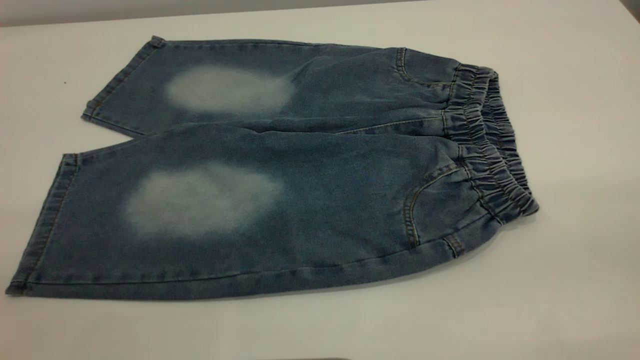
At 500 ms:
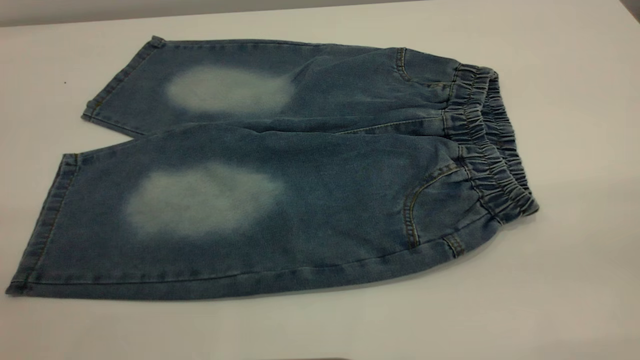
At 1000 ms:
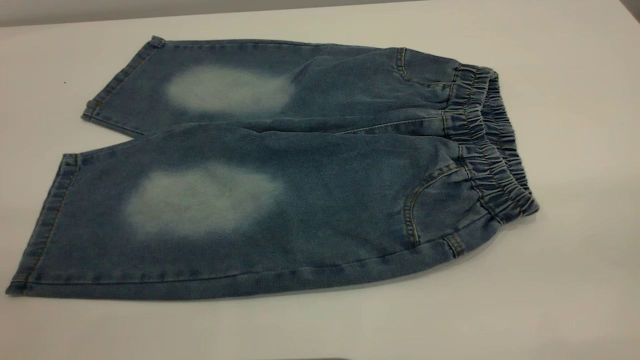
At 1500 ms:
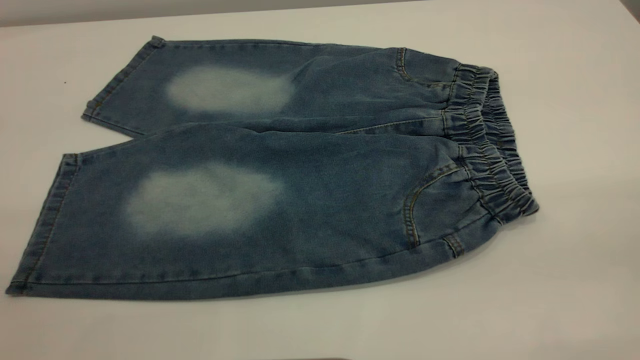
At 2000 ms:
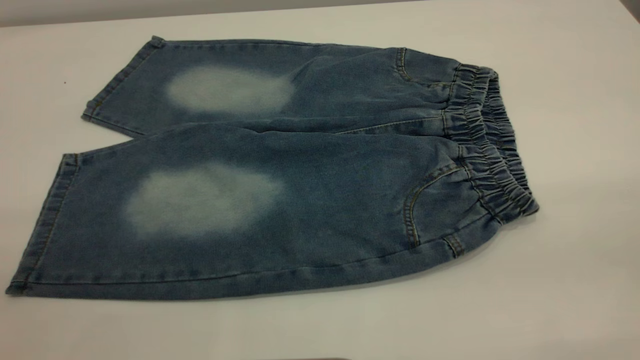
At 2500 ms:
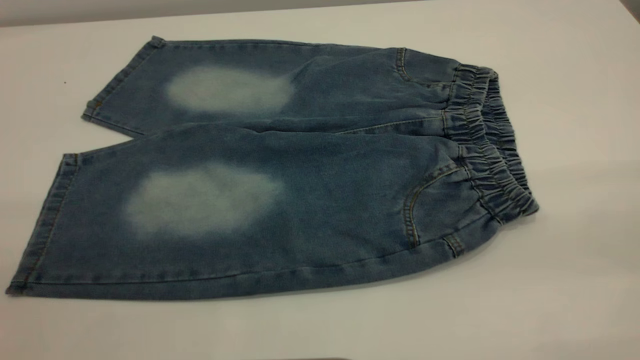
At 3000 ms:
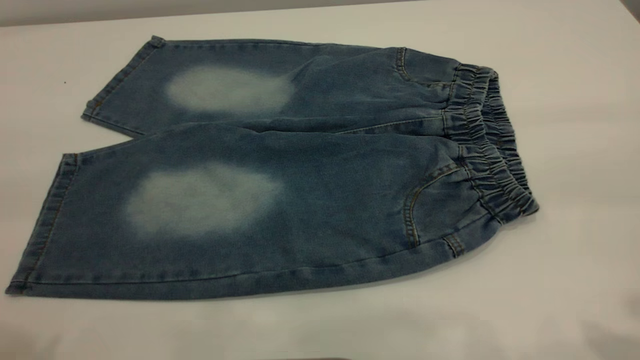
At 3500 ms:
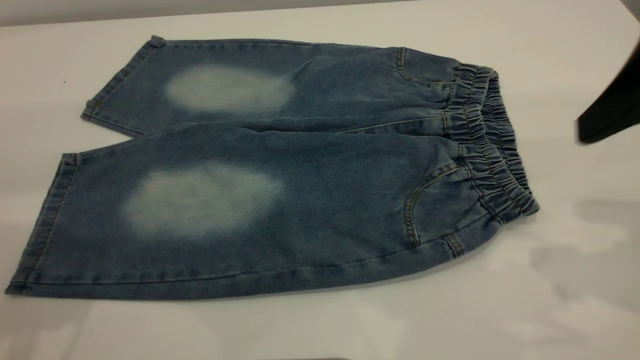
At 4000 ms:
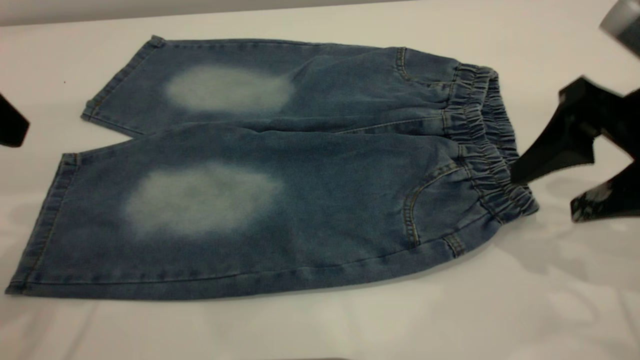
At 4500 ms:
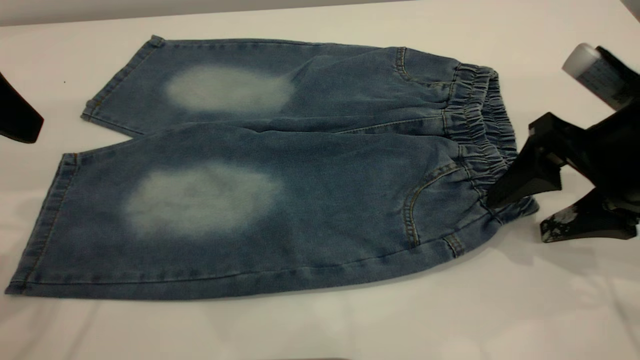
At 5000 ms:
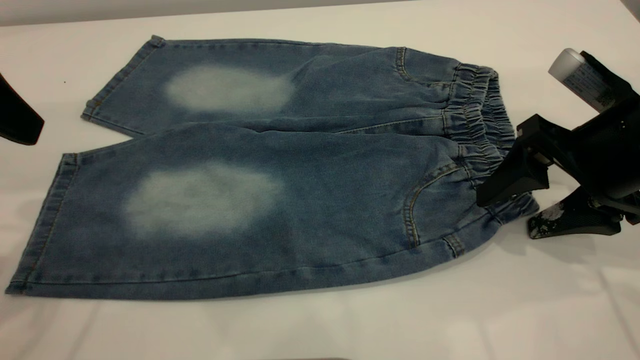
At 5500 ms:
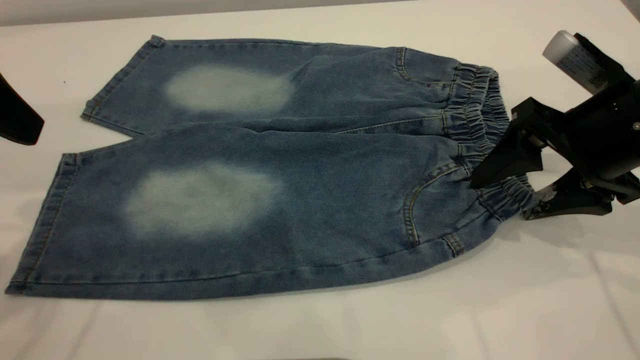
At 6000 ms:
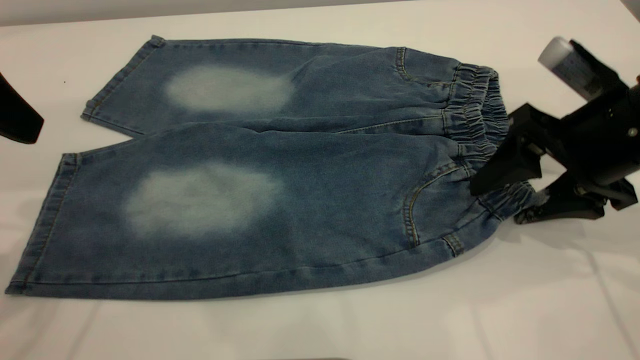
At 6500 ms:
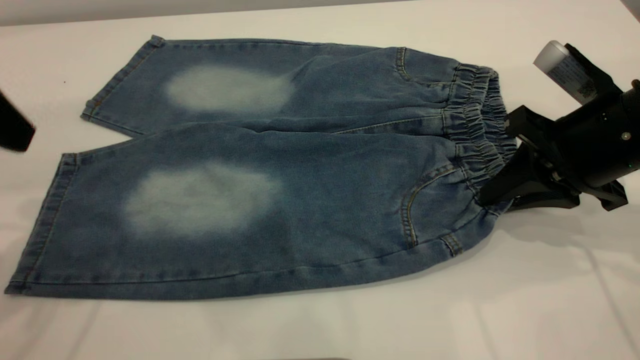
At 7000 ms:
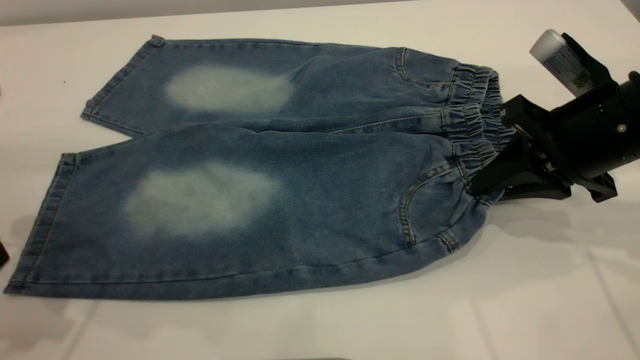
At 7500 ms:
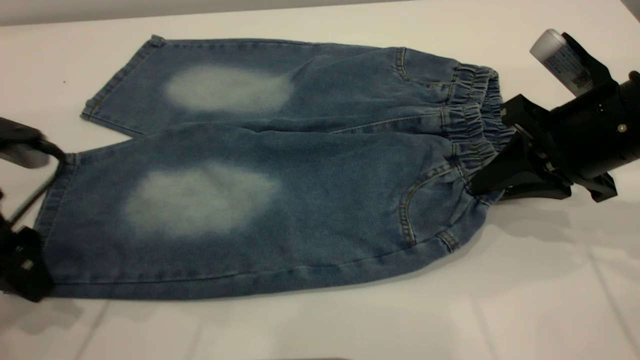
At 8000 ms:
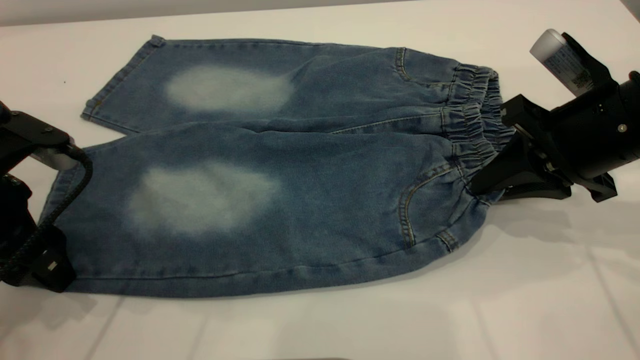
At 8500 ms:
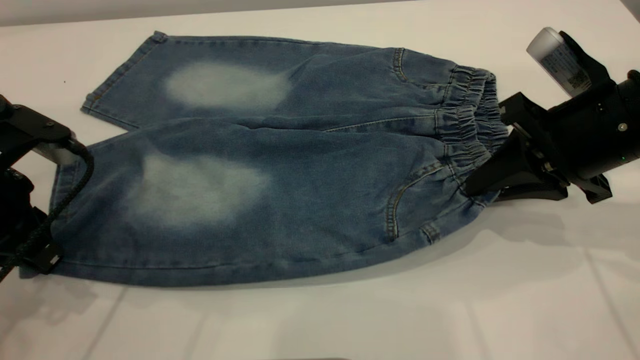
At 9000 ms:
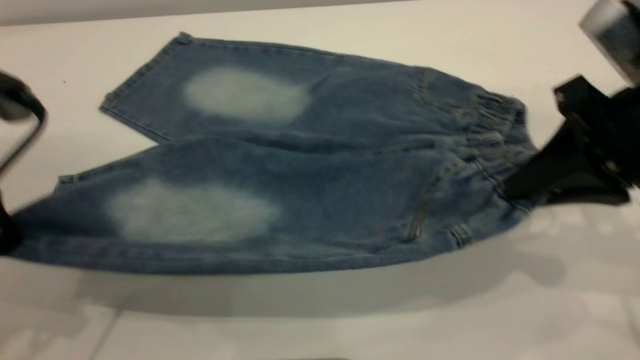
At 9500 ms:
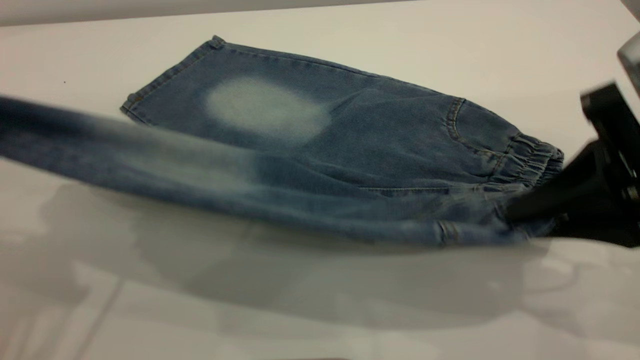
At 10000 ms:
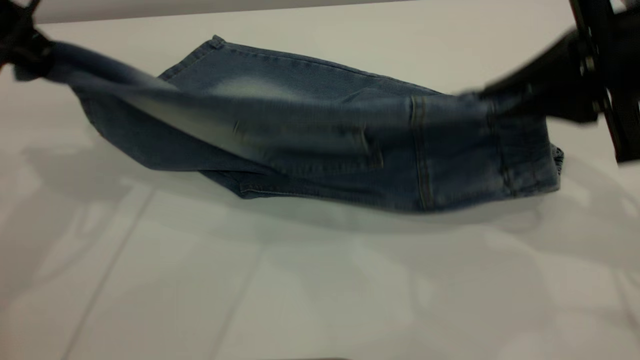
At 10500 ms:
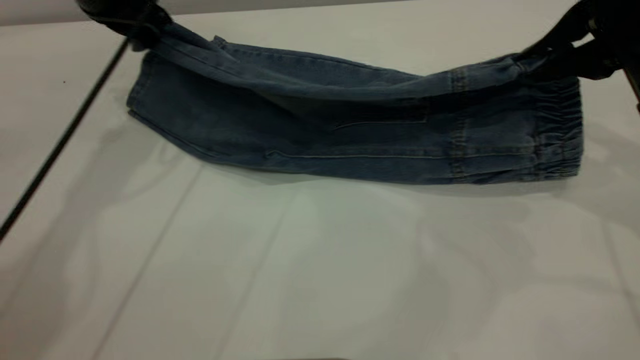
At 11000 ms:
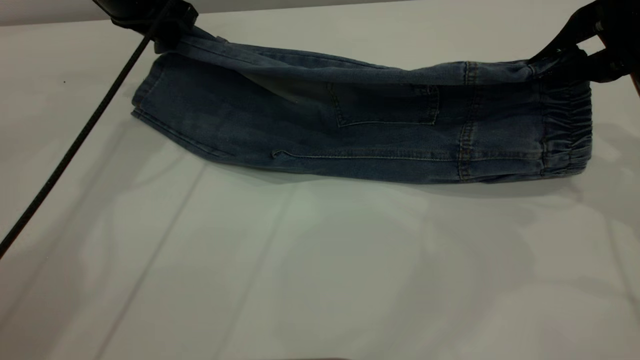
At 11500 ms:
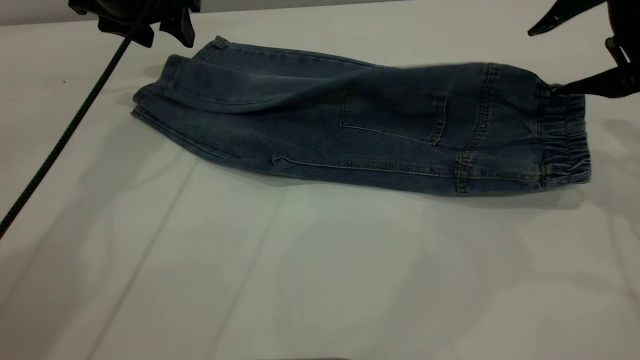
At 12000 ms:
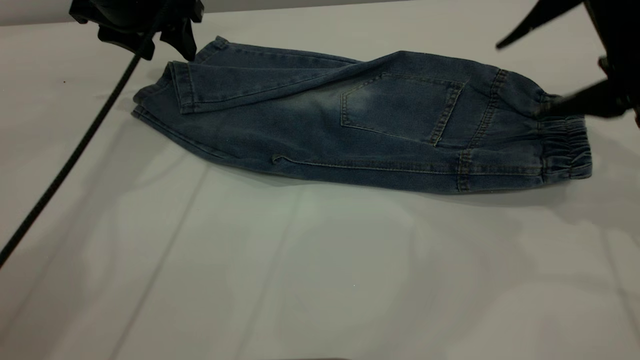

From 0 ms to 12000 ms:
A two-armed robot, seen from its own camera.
Step, from 0 ms to 11500 ms: Fold the bottom of the pants upward.
From 0 ms to 2000 ms: The two grippers keep their place.
From 2000 ms to 4000 ms: The right gripper moves forward and downward, roughly 30 cm.
From 4000 ms to 6000 ms: The right gripper changes place by some 5 cm.
From 6000 ms to 8000 ms: The right gripper closes up, while the left gripper travels downward by roughly 15 cm.
From 8000 ms to 10000 ms: The left gripper travels upward and forward by about 15 cm, and closes its fingers; the right gripper moves upward, some 10 cm, and reaches about 10 cm backward, then returns.
From 10000 ms to 12000 ms: The right gripper opens; the left gripper heads forward, to the right and downward, covering approximately 15 cm, and opens.

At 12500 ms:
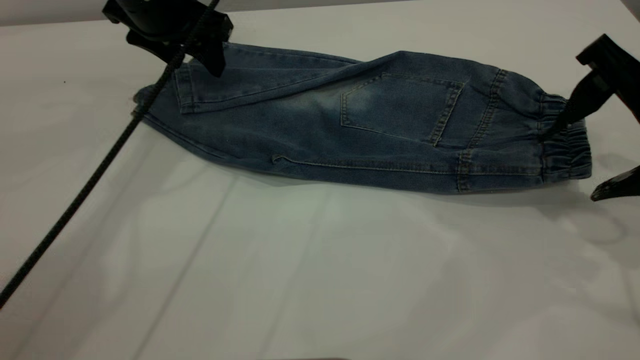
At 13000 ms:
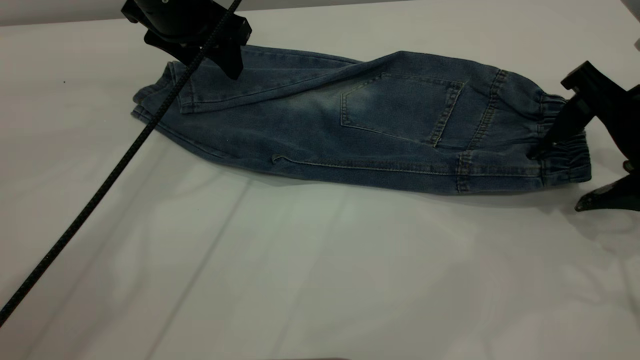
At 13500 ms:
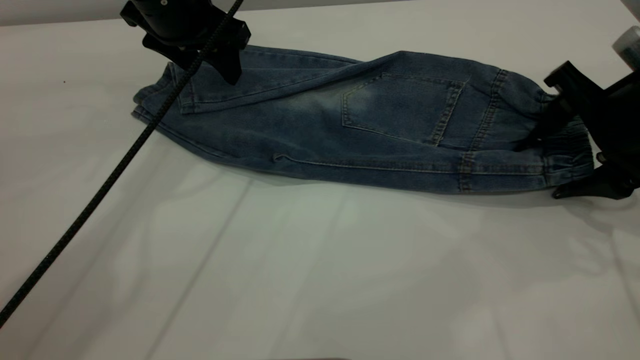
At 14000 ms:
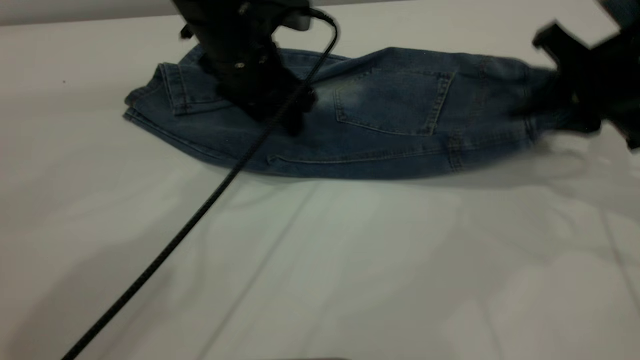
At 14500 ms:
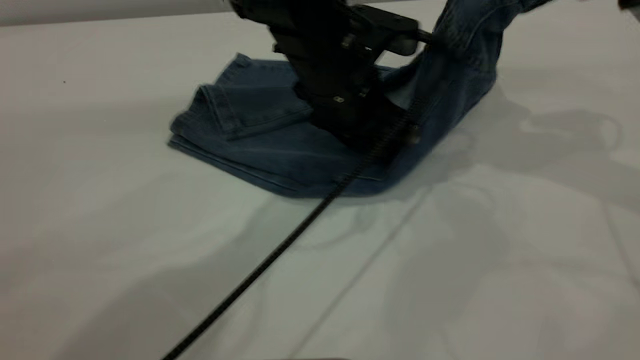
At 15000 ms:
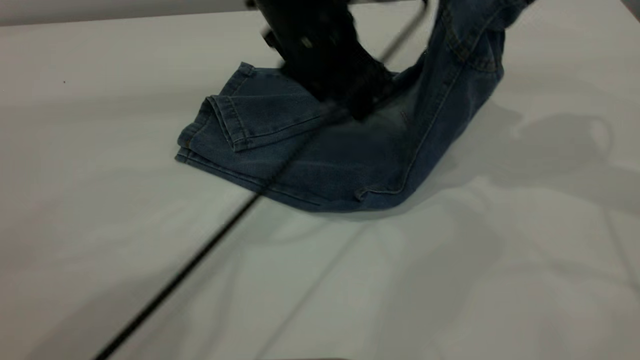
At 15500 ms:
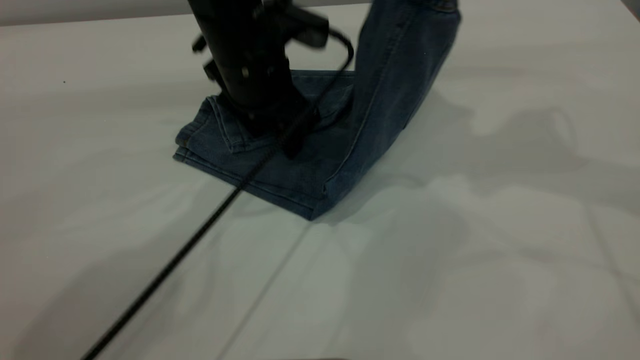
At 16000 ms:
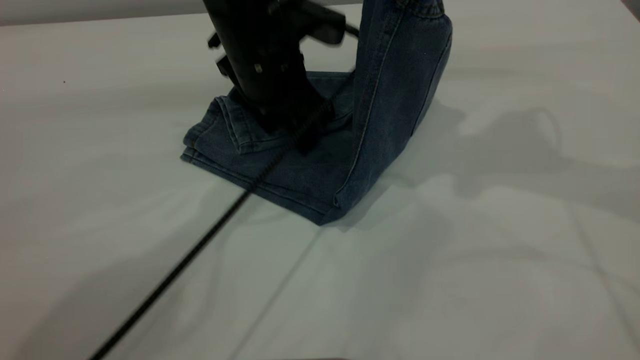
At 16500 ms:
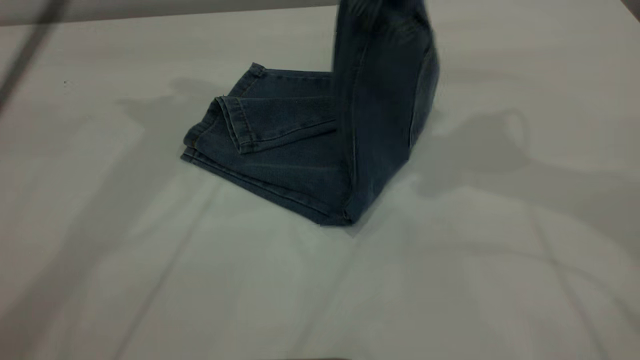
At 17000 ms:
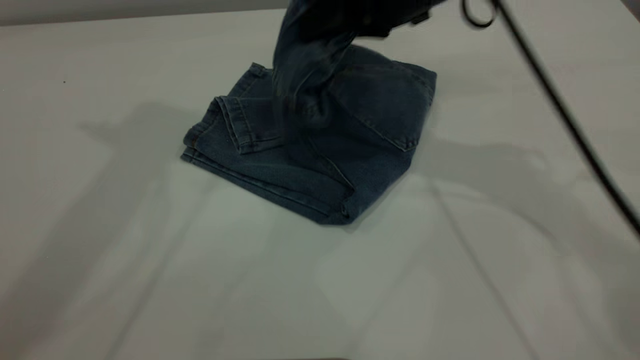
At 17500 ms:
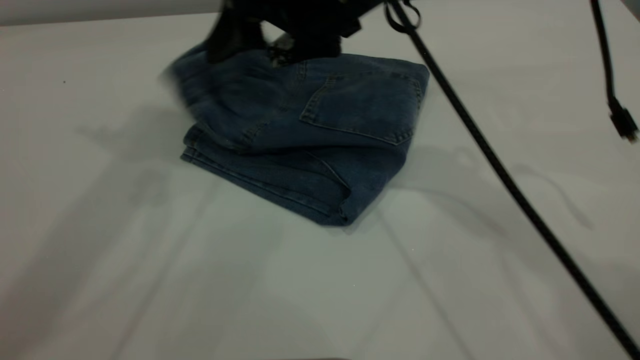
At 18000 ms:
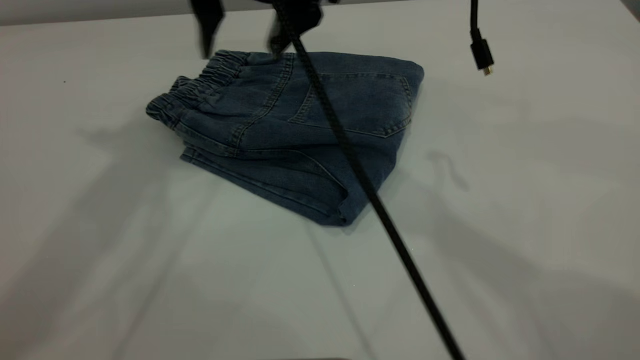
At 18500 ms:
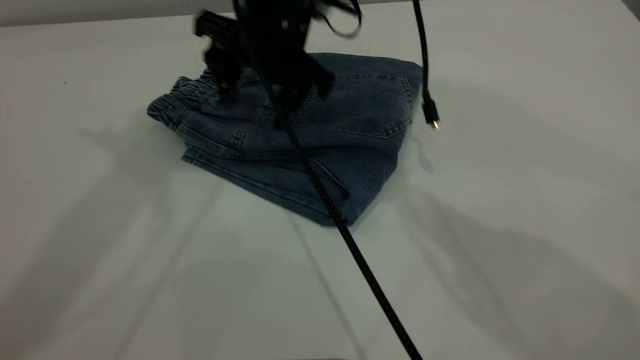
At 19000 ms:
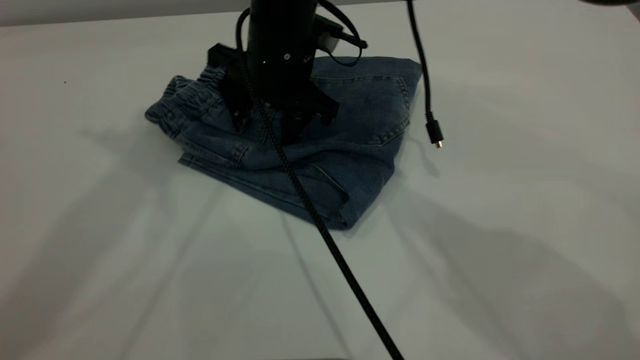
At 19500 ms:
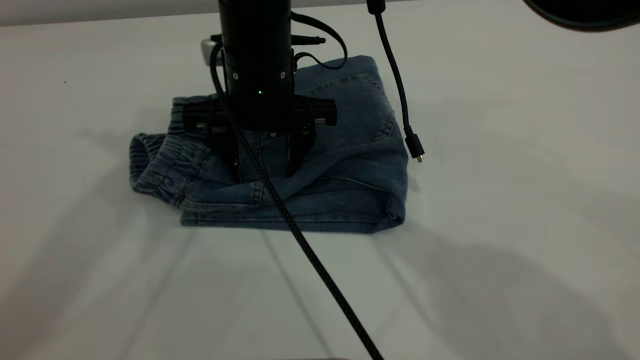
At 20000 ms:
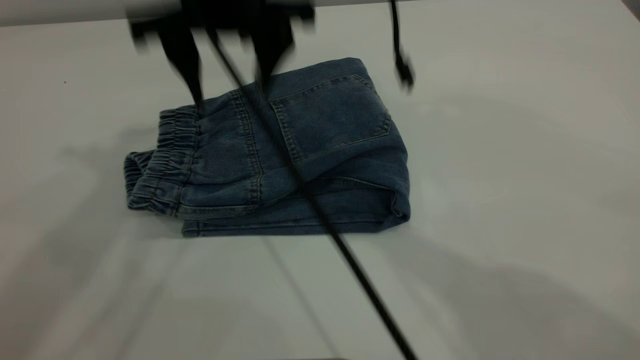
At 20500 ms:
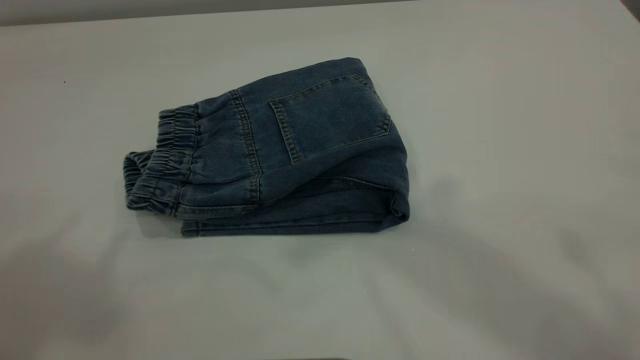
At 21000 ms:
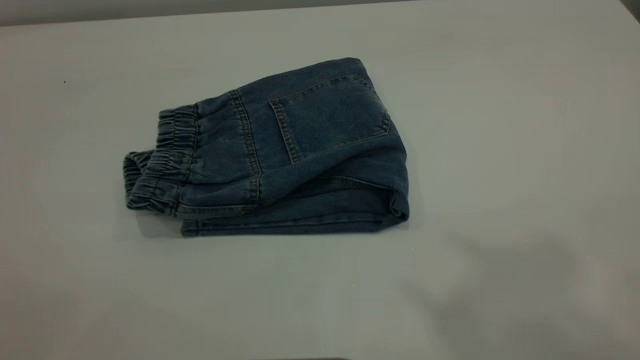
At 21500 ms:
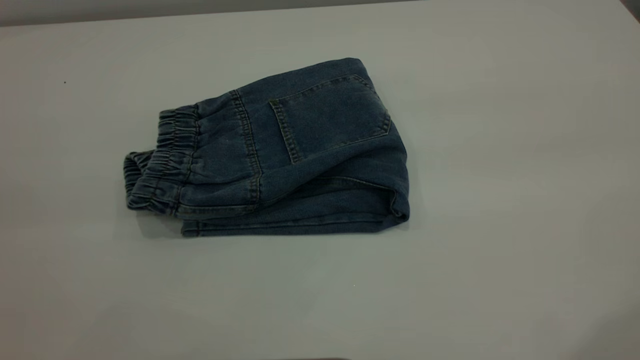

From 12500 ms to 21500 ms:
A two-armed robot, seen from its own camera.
Step, from 12500 ms to 17500 ms: Fold your pants from right to left.
From 12500 ms to 14500 ms: The right gripper moves upward and forward, roughly 10 cm, and closes its fingers. The left gripper is displaced to the right and backward by about 20 cm.
From 14500 ms to 17000 ms: The right gripper travels to the left by about 15 cm. Meanwhile the left gripper swings up and down, some 30 cm each way, with 2 reversals.
From 17000 ms to 19500 ms: The right gripper is displaced to the left and downward by roughly 15 cm, and opens.
From 19500 ms to 21500 ms: The right gripper travels upward, backward and to the right by some 50 cm, while the left gripper moves backward, approximately 30 cm.
